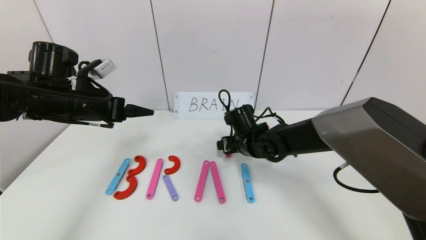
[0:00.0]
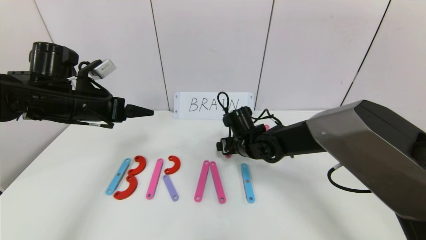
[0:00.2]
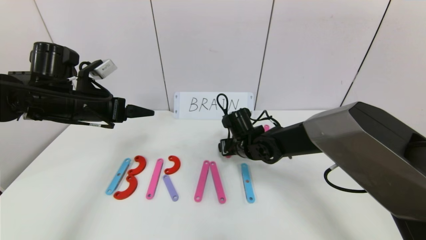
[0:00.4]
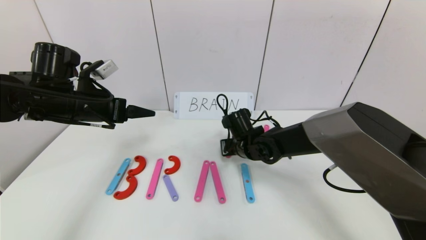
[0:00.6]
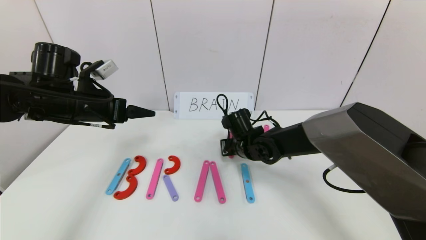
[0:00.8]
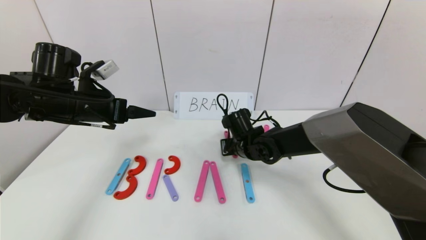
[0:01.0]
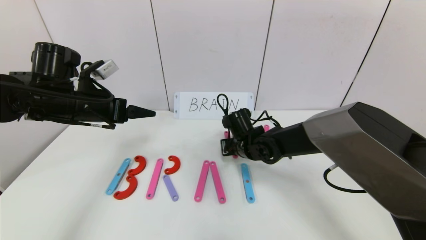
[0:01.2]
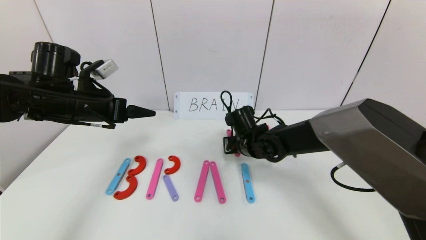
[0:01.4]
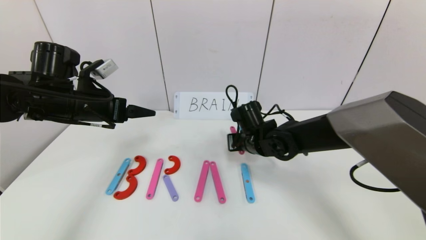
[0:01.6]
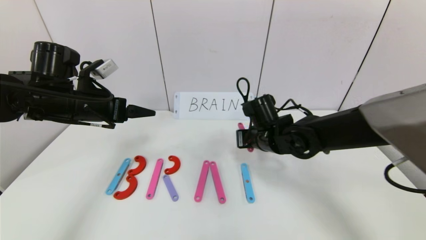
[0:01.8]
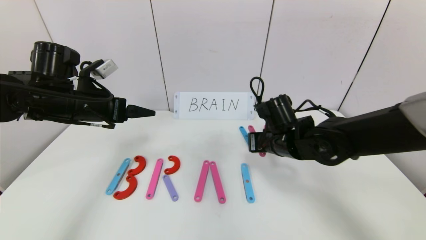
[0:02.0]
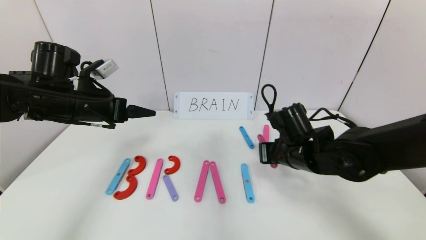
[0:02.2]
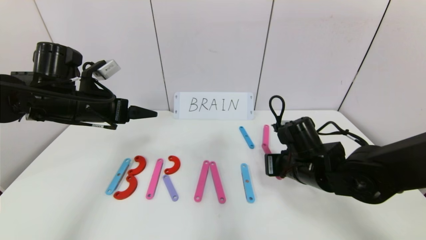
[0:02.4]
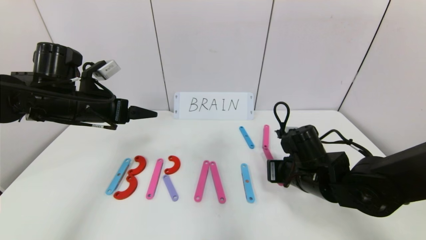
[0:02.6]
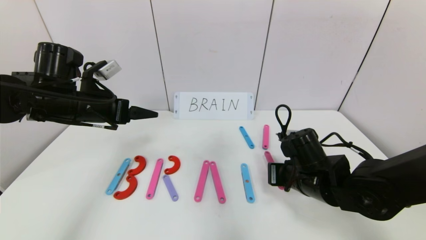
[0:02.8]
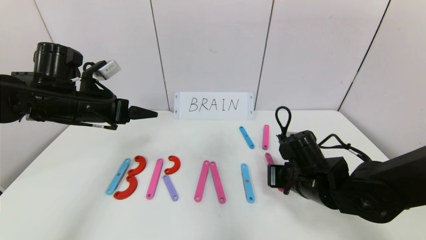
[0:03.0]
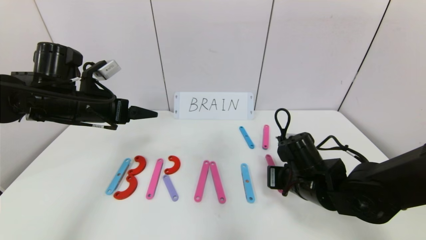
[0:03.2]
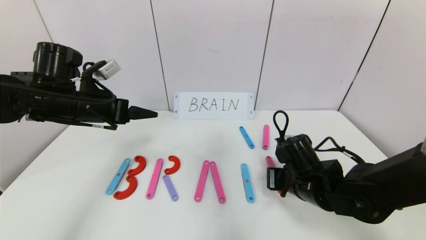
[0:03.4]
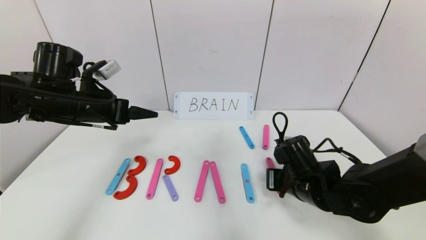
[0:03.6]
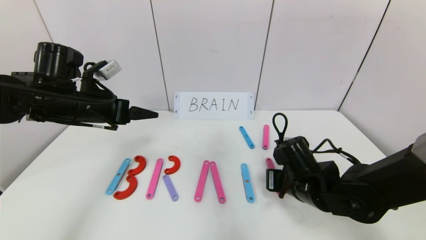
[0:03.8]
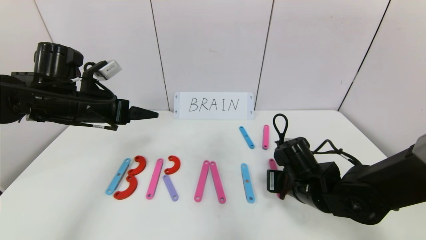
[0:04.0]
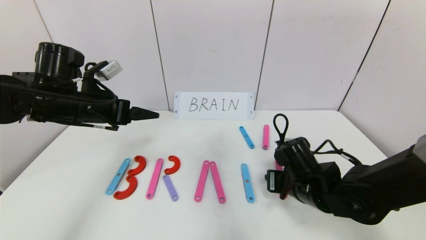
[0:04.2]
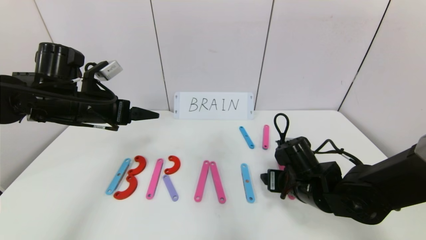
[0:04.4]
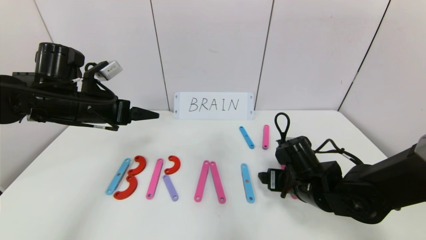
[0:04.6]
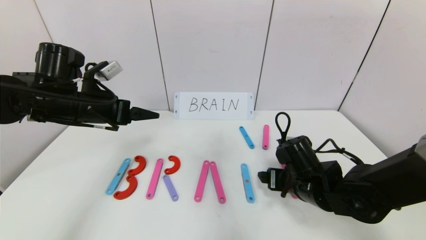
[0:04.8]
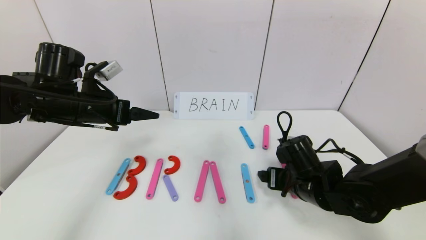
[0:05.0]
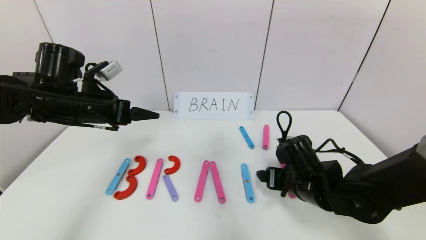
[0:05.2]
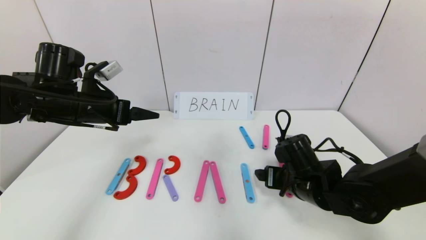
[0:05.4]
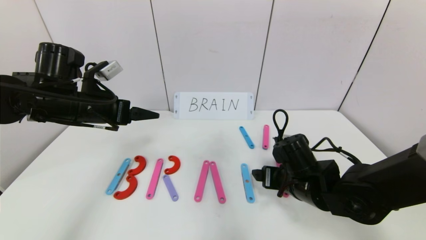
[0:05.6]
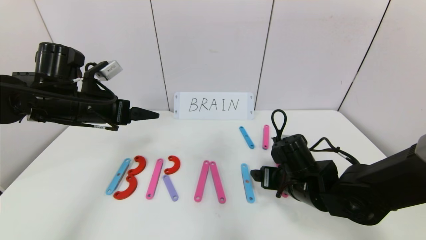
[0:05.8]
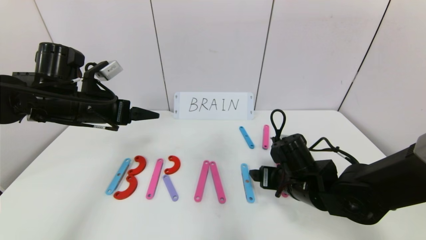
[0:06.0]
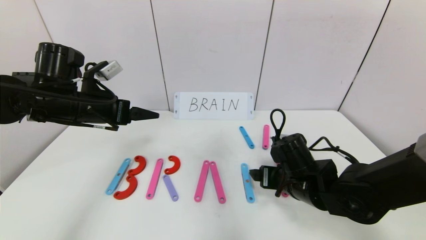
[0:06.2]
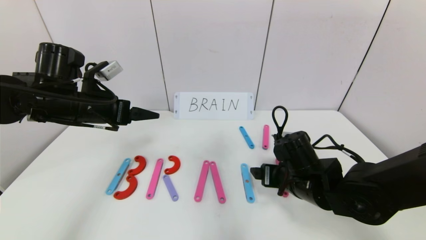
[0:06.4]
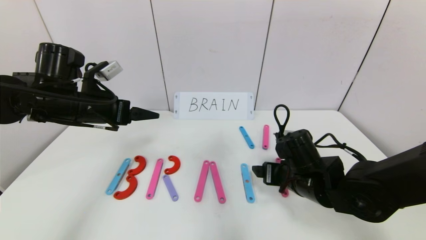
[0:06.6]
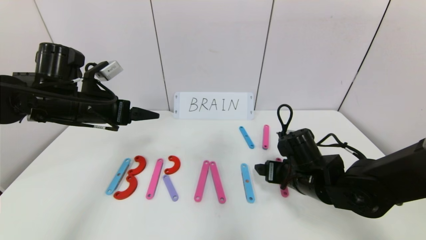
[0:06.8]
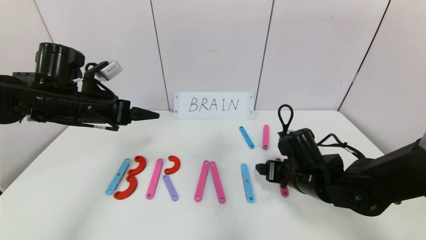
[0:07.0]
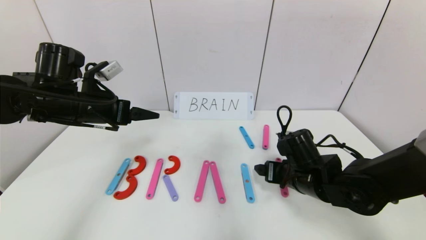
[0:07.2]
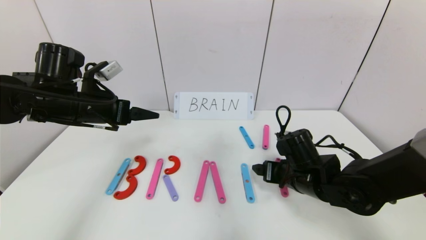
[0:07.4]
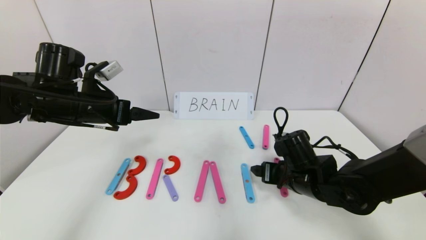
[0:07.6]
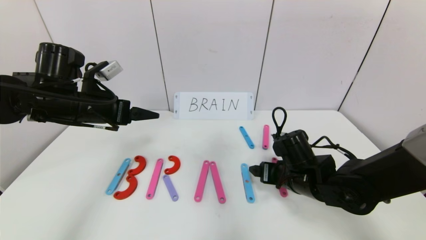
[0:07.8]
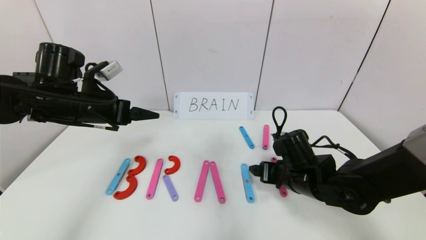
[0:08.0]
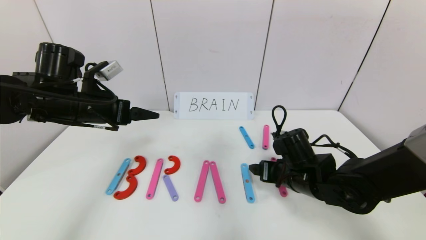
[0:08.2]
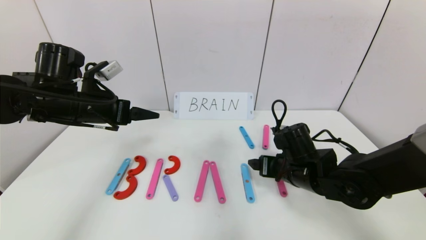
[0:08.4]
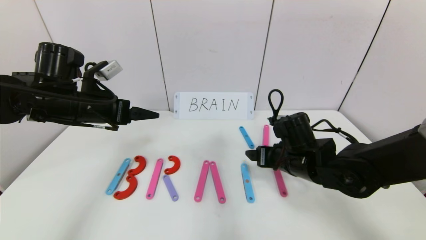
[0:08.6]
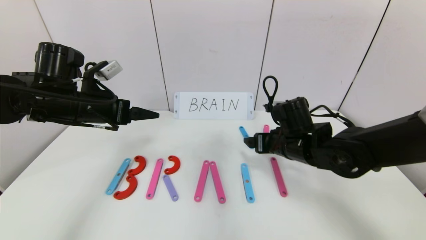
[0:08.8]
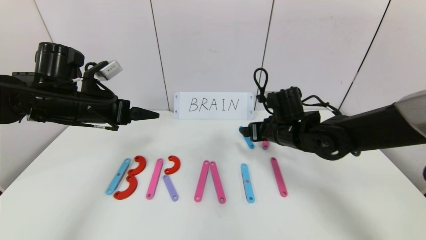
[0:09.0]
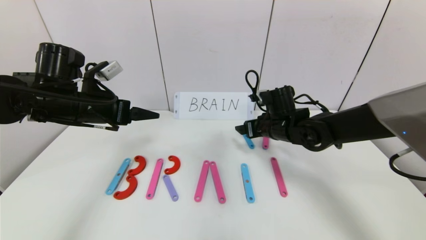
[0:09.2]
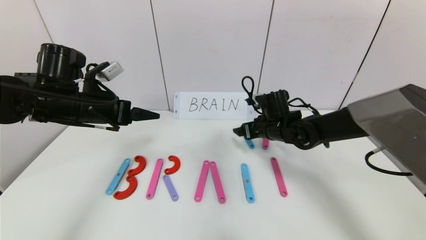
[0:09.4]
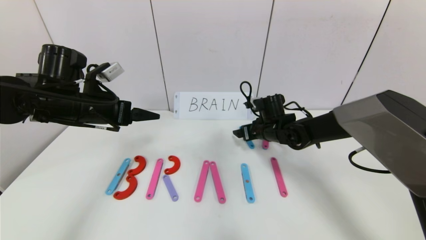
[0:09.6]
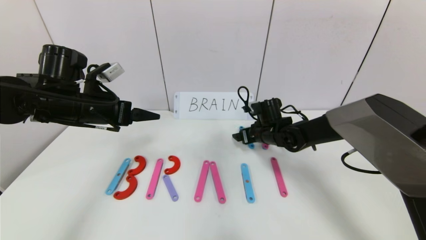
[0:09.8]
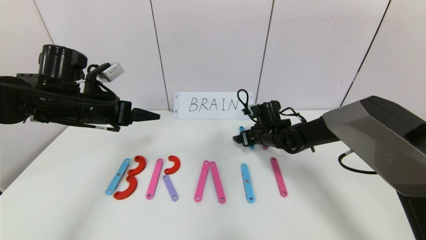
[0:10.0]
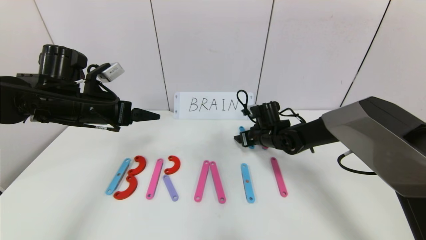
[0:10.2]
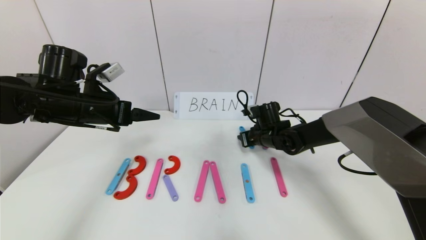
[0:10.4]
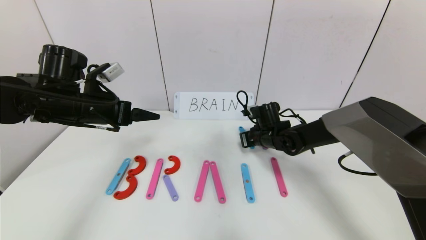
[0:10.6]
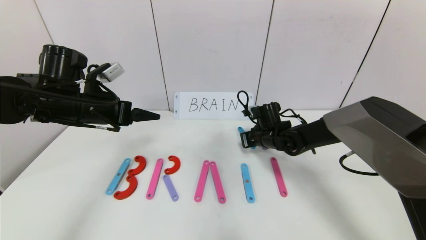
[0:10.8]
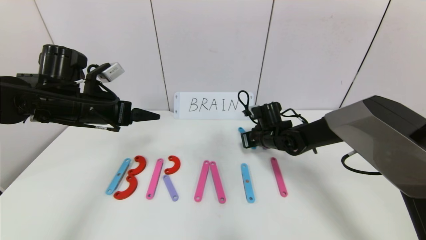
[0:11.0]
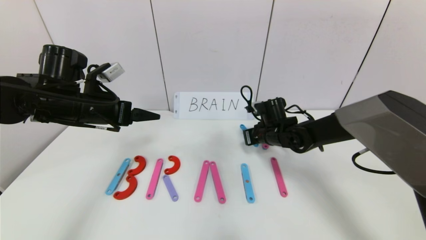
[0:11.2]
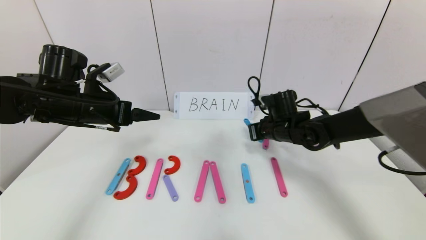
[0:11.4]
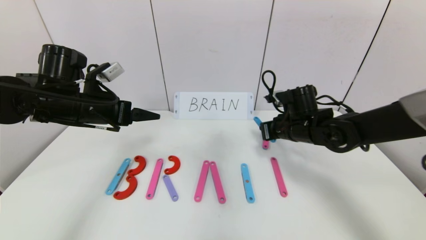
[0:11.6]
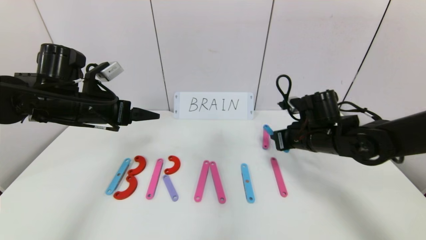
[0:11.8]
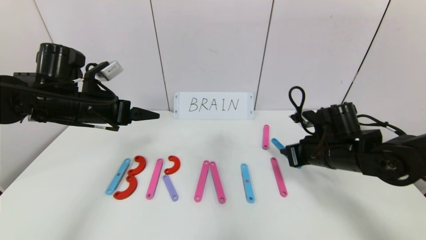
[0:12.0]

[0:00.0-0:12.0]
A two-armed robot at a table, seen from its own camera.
Task of the whole recording: rearrange the word baai as brain.
0:00.0 to 0:01.6: The right gripper closes its fingers.
0:01.6 to 0:03.0: The right gripper is displaced backward and to the right by roughly 15 cm.
0:03.0 to 0:04.4: The right gripper opens up.
0:04.4 to 0:07.6: The grippers make only small movements.
0:07.6 to 0:09.0: The right gripper moves forward and upward, some 10 cm.
0:09.0 to 0:10.4: The right gripper travels downward and forward by roughly 10 cm, and closes.
0:10.4 to 0:12.0: The right gripper is displaced backward, to the right and upward by some 15 cm, and closes up.

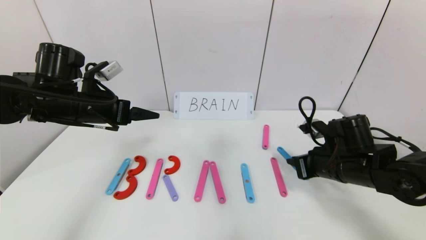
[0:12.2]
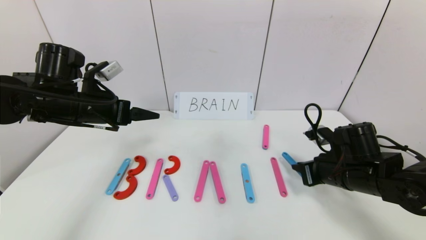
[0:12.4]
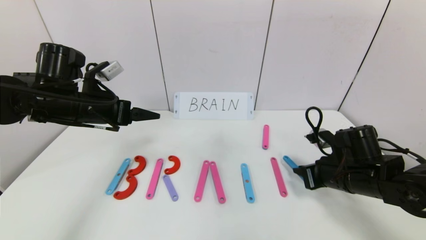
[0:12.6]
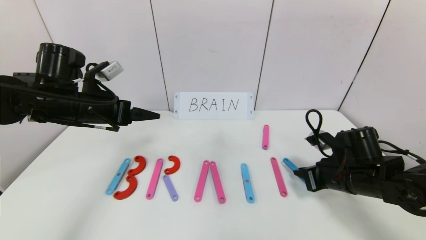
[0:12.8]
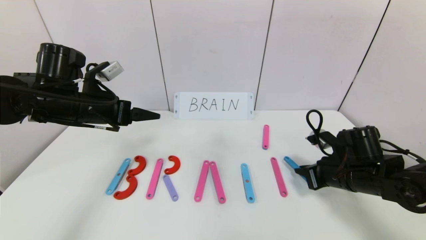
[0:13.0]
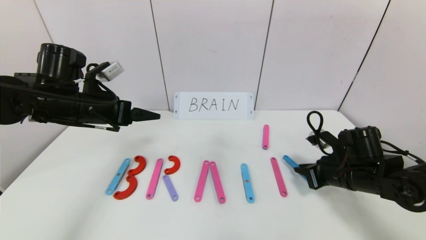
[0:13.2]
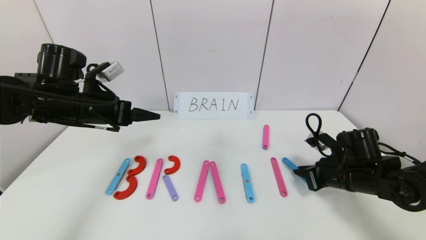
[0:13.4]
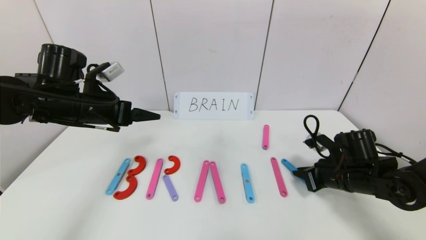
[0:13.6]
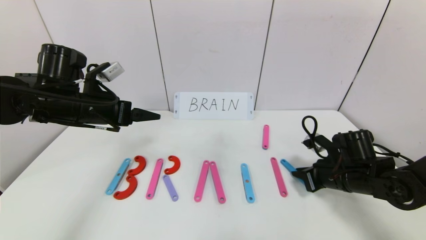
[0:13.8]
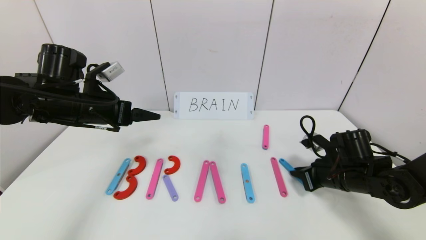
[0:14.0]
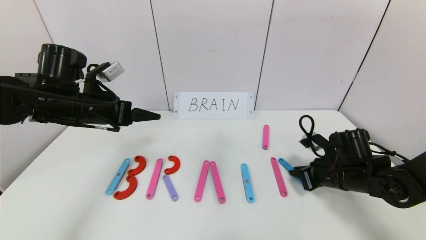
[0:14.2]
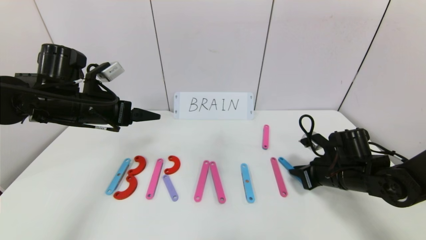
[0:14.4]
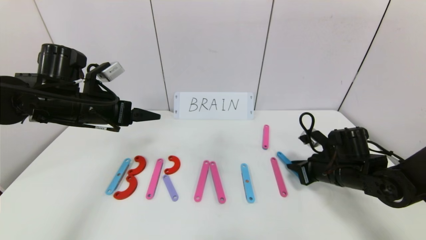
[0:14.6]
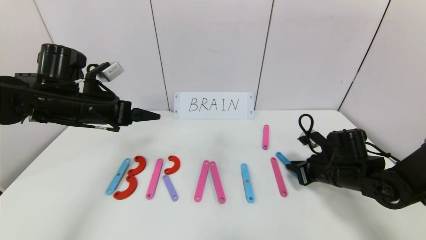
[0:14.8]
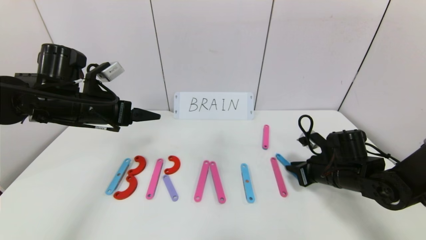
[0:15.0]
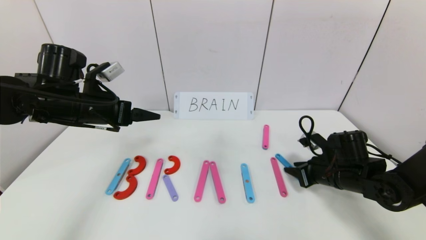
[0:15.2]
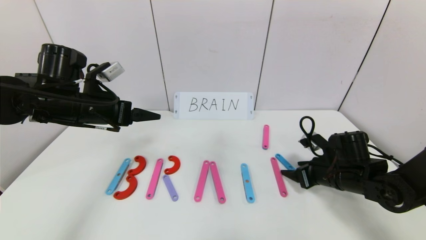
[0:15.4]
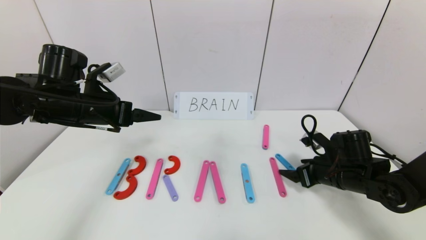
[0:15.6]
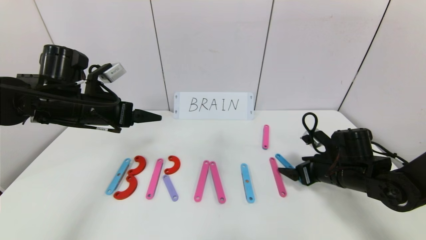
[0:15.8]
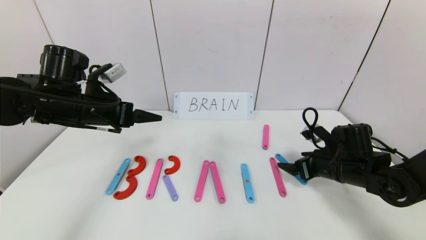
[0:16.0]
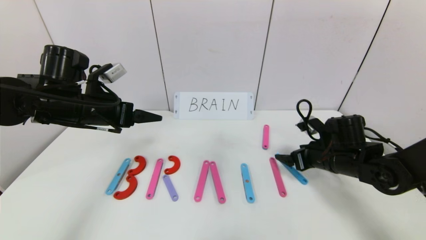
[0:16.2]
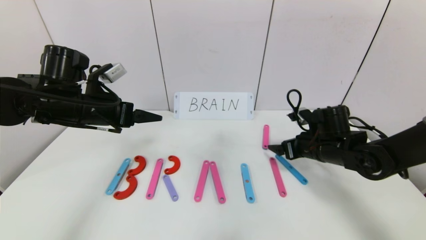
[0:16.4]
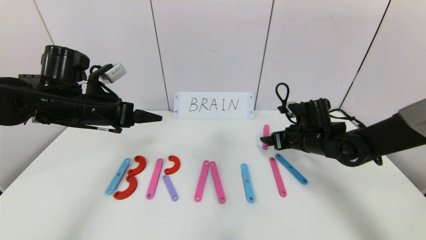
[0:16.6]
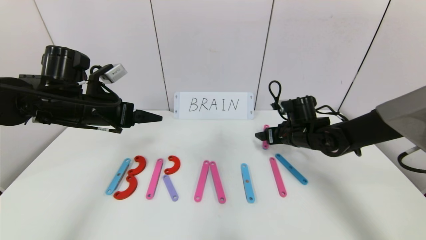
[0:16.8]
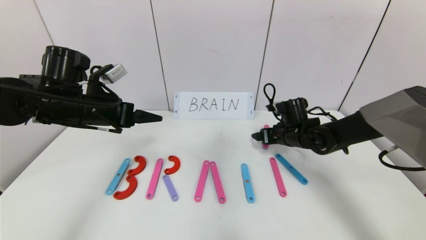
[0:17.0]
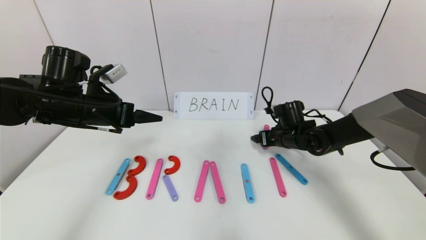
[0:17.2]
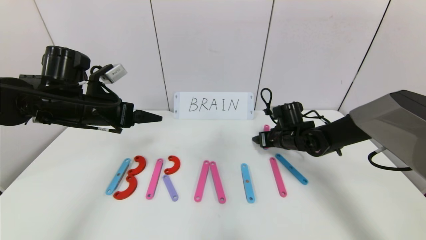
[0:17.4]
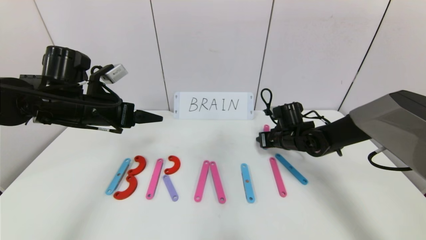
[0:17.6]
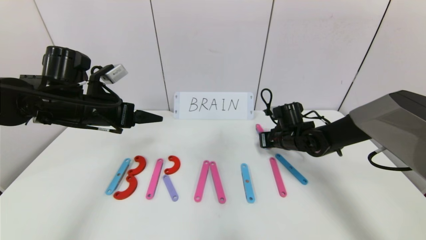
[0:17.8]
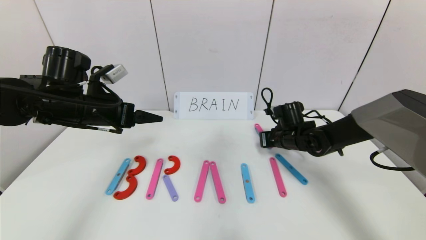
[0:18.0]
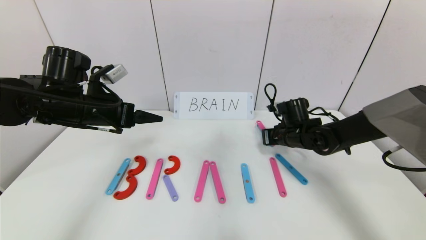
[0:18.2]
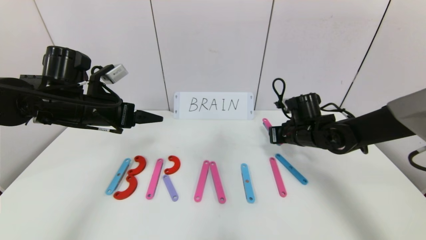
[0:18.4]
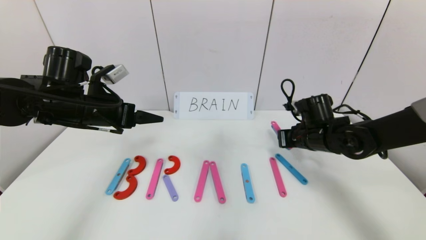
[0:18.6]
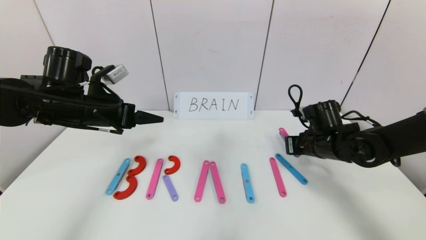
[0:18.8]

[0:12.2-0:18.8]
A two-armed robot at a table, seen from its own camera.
Task of the whole recording: rearrange the word baai as brain.
0:12.2 to 0:13.8: The right gripper changes place by roughly 5 cm.
0:13.8 to 0:15.4: The right gripper opens.
0:15.4 to 0:17.2: The right gripper moves forward and to the left, roughly 15 cm.
0:17.2 to 0:18.8: The right gripper goes approximately 5 cm backward, and closes up.
